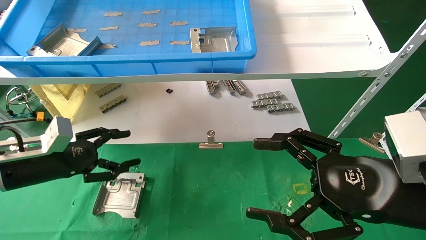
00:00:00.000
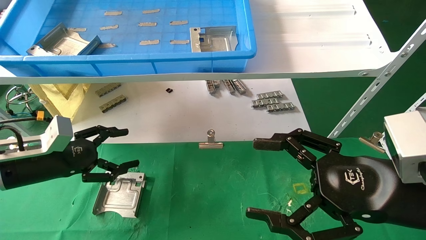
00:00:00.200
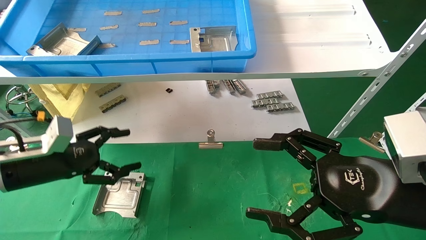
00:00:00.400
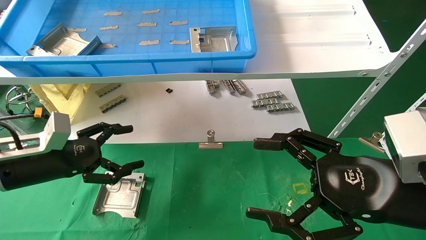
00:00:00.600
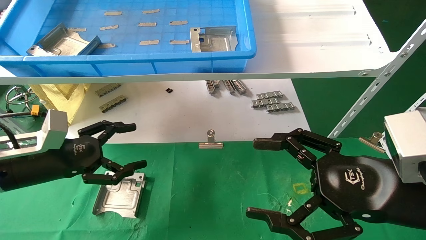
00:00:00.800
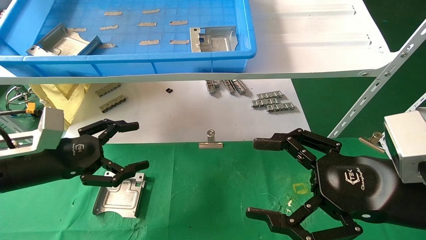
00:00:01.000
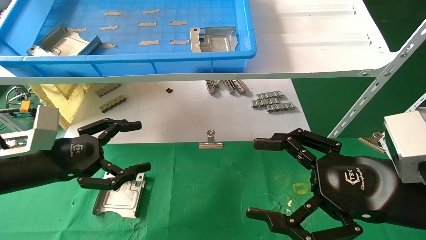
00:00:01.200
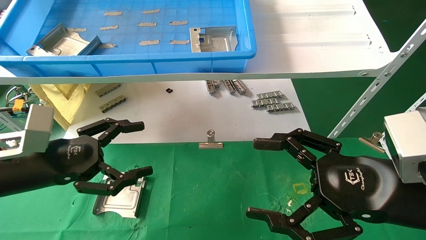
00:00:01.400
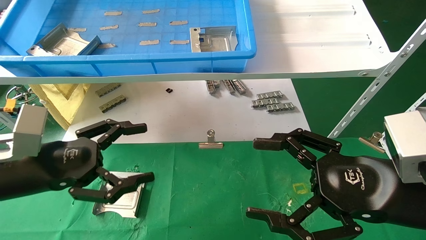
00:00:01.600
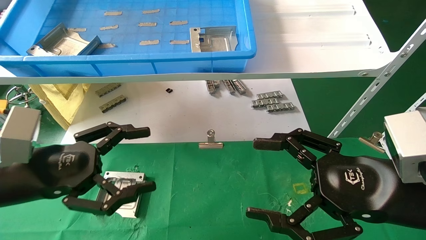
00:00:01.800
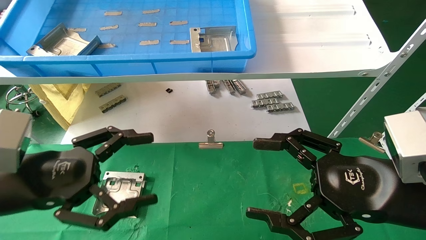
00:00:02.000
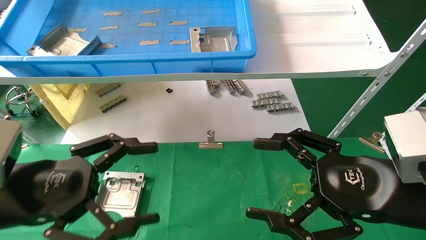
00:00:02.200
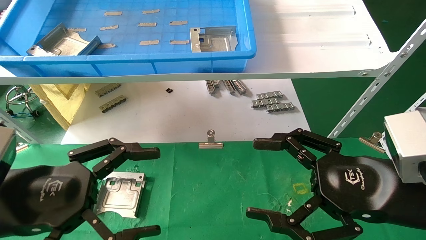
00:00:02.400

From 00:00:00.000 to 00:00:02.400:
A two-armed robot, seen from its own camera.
Task of the whole recording: use the mechanical arm to pick up the parts and place them on the table.
From 00:00:00.000 to 00:00:01.200: The left gripper moves about 5 cm, and opens its fingers.
From 00:00:01.200 to 00:00:02.400: The left gripper goes roughly 10 cm backward.
